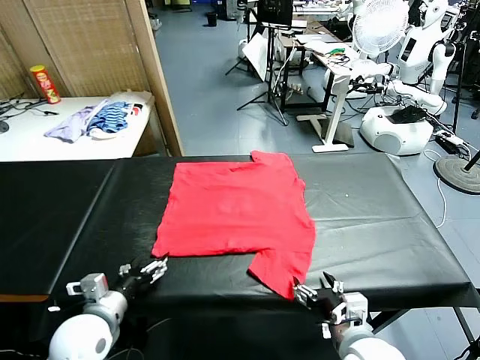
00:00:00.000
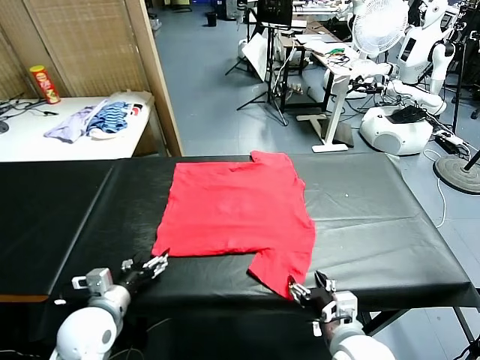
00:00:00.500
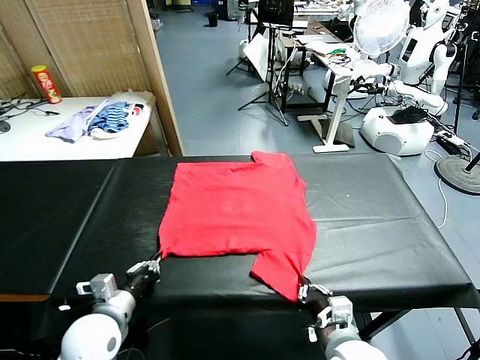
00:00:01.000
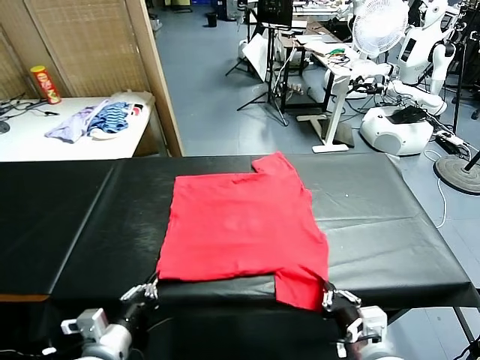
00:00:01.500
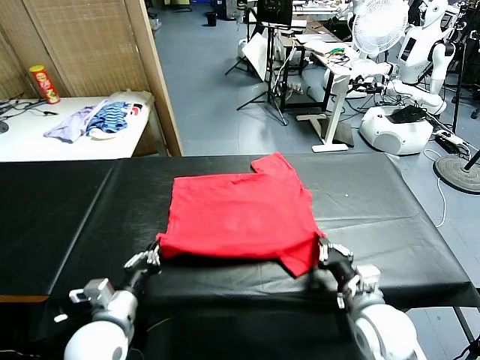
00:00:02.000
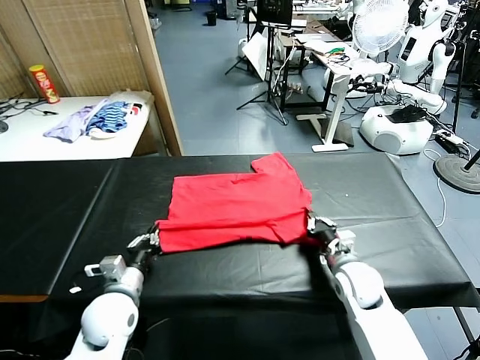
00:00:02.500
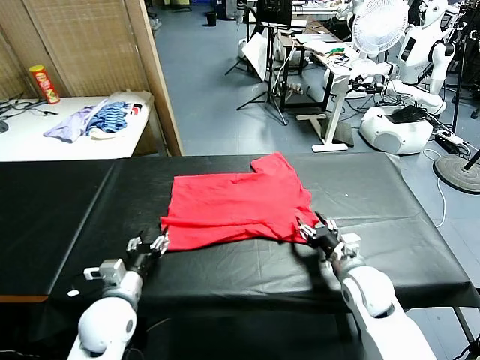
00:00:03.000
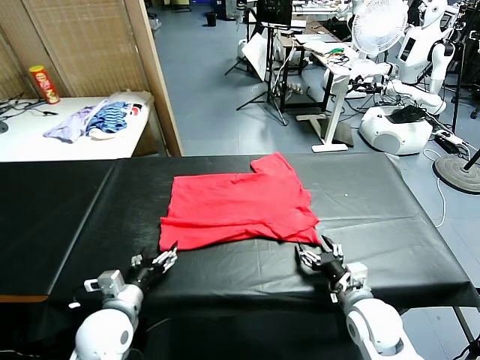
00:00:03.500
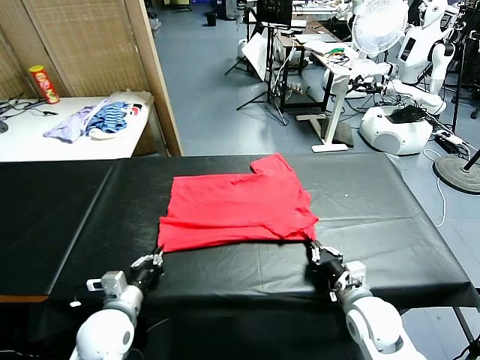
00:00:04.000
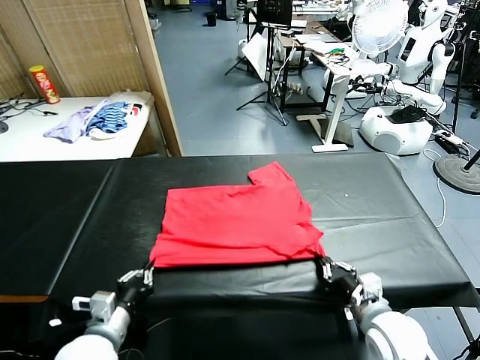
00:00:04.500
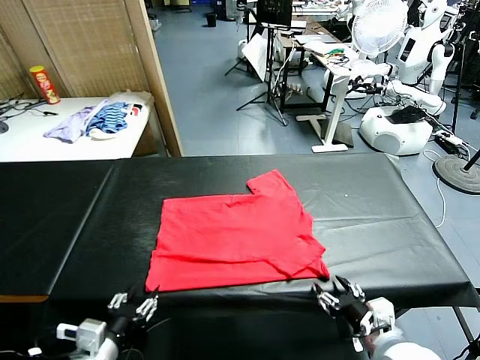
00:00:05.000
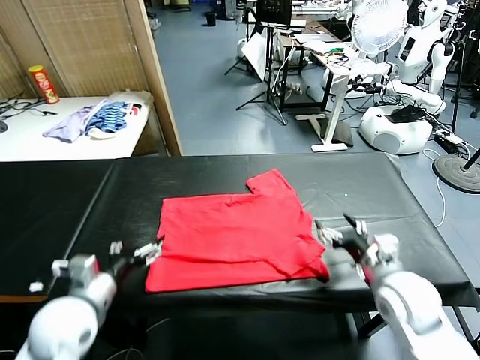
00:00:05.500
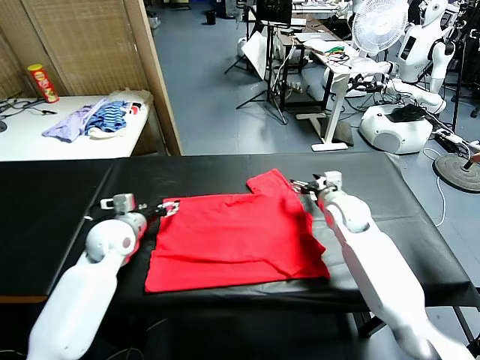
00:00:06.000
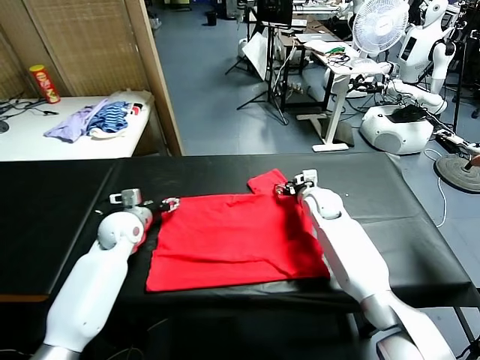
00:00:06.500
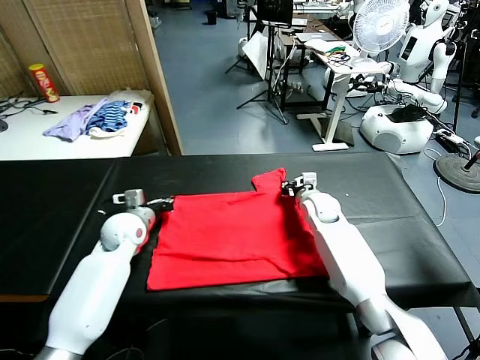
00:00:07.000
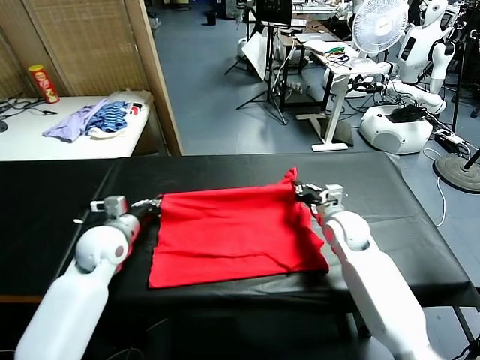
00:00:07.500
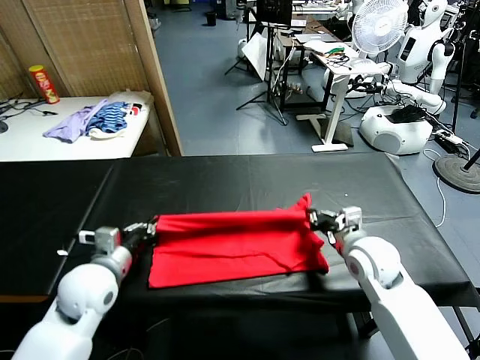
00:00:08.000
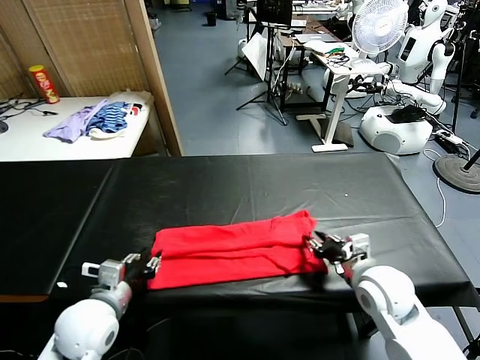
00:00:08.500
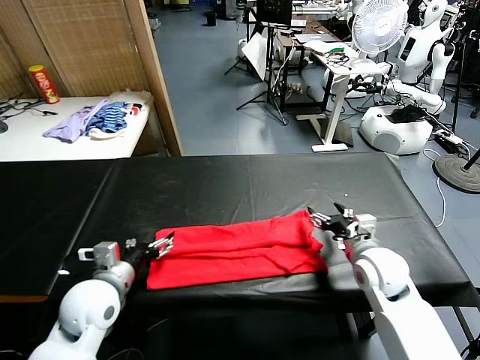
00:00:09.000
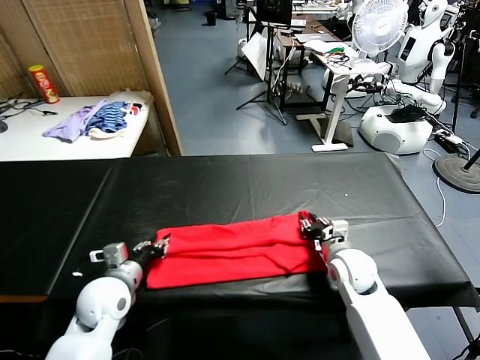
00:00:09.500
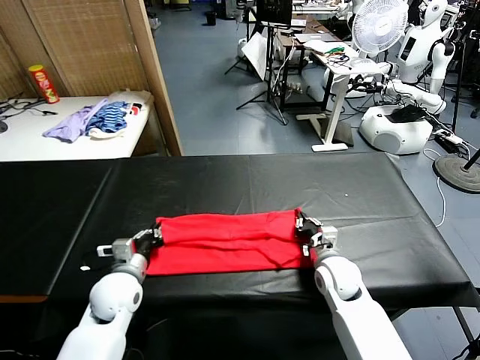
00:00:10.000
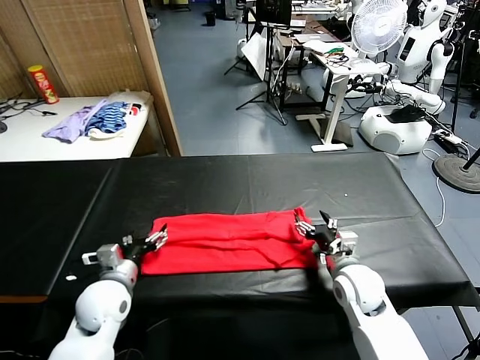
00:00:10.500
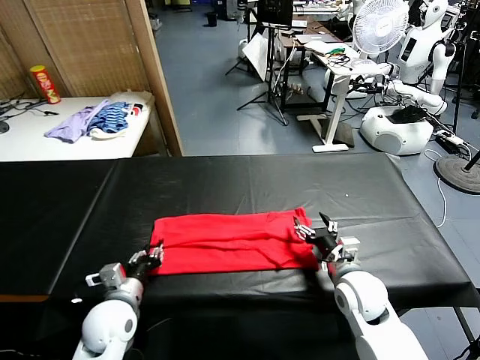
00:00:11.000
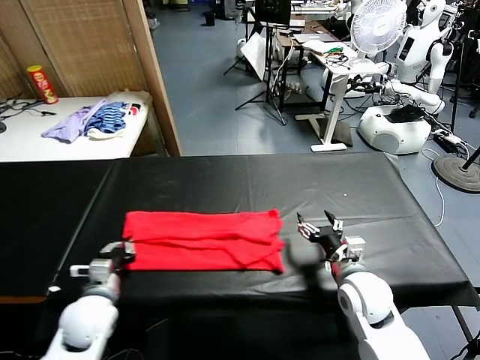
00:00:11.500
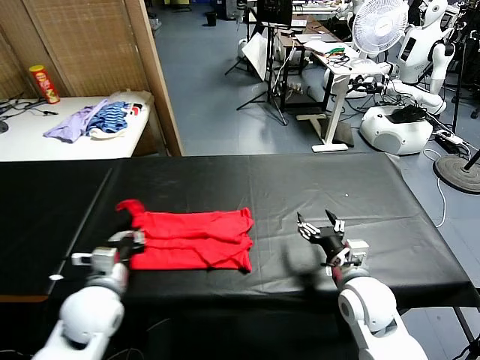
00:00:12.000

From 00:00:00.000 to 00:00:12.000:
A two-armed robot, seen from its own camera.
Task of the whole recording: fold and organize the clothes.
Step, from 00:00:00.000 to 00:00:01.500: use both grippers simultaneously to clamp the lower edge of the clothing fabric.
Step, from 00:00:02.000 to 00:00:03.000: use both grippers to drag the lower edge of the fabric forward and fold it over the upper edge.
Step, from 00:00:03.500 to 00:00:05.000: Drag the clothes downward with both gripper.
Step, from 00:00:05.500 to 00:00:07.000: use both grippers simultaneously to clamp the upper edge of the clothing fabric.
Step, from 00:00:07.500 to 00:00:08.500: use both grippers to drag the upper edge of the fabric backward and fold it over the lower edge.
Step, from 00:00:09.000 to 00:00:11.000: use the left gripper to clamp the left edge of the fabric.
From 00:00:02.000 to 00:00:04.000: The left gripper opens, then closes once more. The right gripper opens and closes again.
From 00:00:04.000 to 00:00:06.000: Both grippers move forward, approximately 25 cm. The left gripper opens its fingers, while the right gripper opens.
From 00:00:06.000 to 00:00:08.000: Both grippers move backward, approximately 15 cm. The right gripper closes up, while the left gripper closes.
From 00:00:08.000 to 00:00:10.000: Both grippers move downward, approximately 10 cm. The right gripper opens its fingers. The left gripper moves roughly 5 cm backward and comes back, and opens, then closes once more.
From 00:00:10.000 to 00:00:12.000: The right gripper shifts roughly 10 cm backward and upward, and opens up. Meanwhile the left gripper shifts some 5 cm backward, and opens, then closes once more.

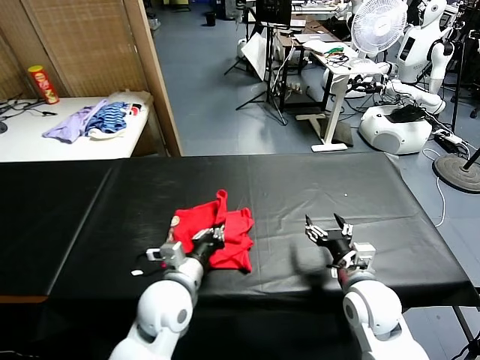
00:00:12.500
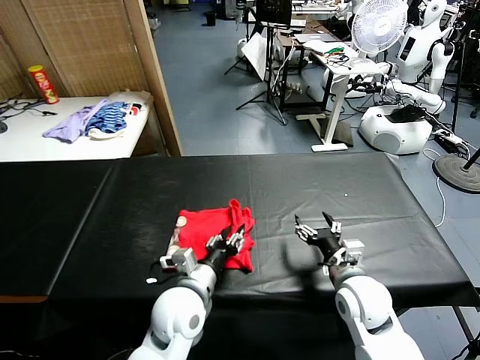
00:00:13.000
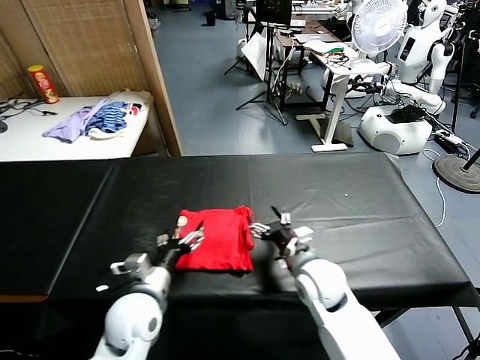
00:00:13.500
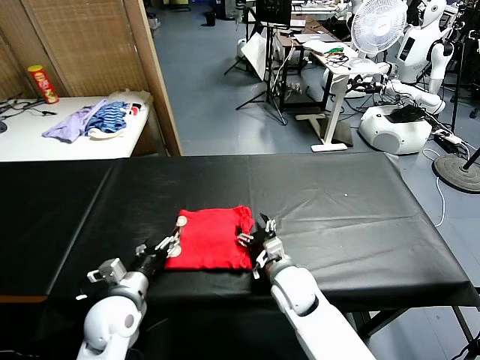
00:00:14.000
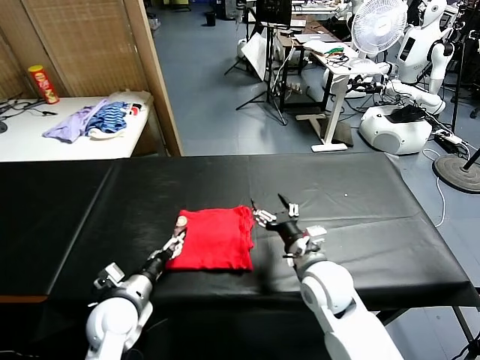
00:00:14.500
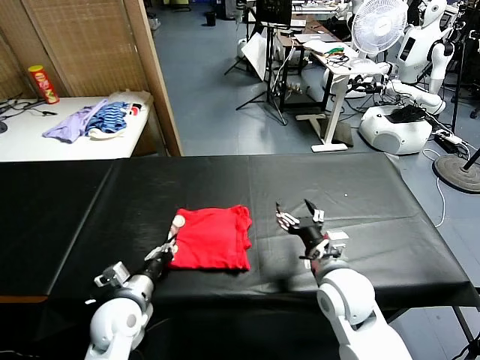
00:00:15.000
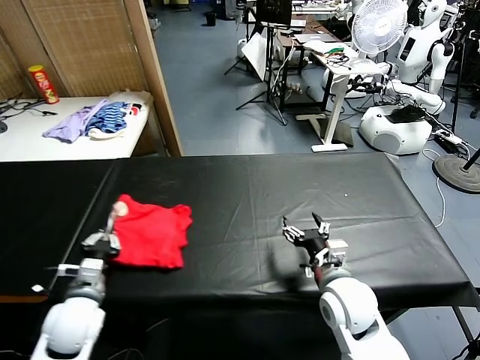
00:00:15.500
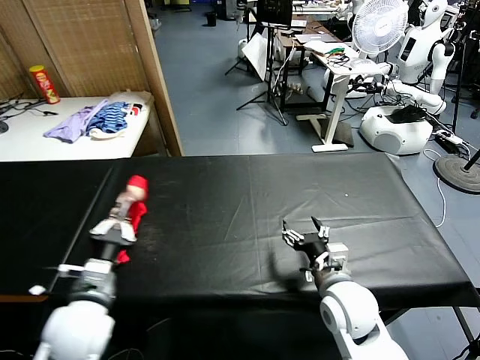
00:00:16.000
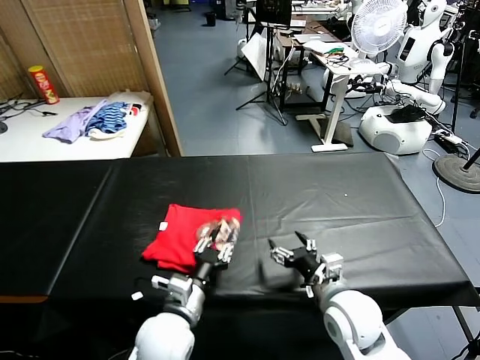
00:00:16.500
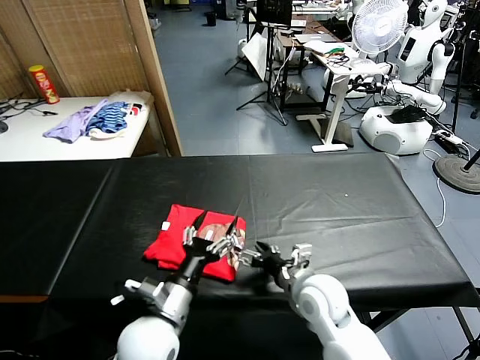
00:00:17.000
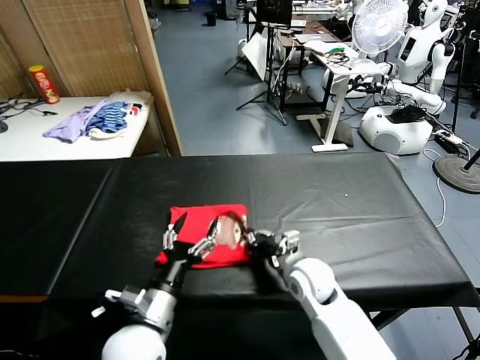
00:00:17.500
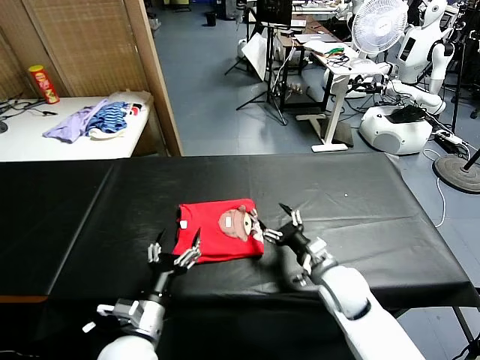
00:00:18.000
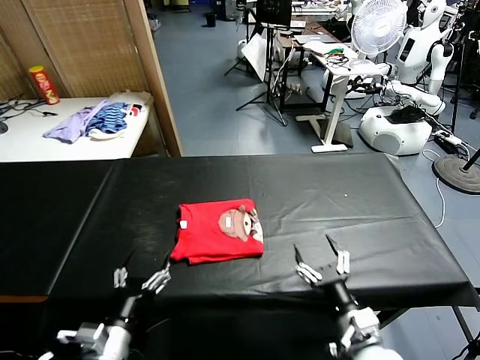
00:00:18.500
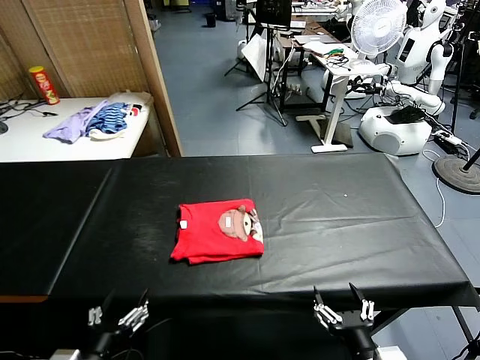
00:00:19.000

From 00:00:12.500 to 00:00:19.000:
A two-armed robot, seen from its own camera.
Task of the whole recording: fold and organize the clothes.
Step, from 00:00:13.500 to 00:00:16.500: Flip the folded clothes over with left gripper.
Step, from 00:00:17.000 to 00:00:18.000: Drag the clothes to the center of the table.
From 00:00:12.500 to 00:00:14.500: The right gripper shifts roughly 10 cm to the left. The left gripper moves to the left and downward, roughly 15 cm, and opens up.
From 00:00:14.500 to 00:00:17.000: The left gripper goes approximately 10 cm to the right and upward, and closes and opens again.
From 00:00:17.000 to 00:00:19.000: The left gripper travels backward and to the left by some 15 cm; the right gripper moves backward, about 20 cm, and closes, then reopens.
